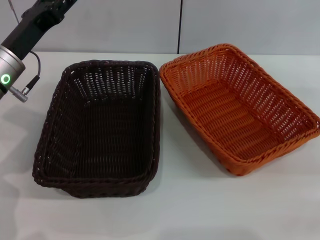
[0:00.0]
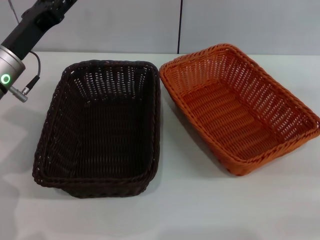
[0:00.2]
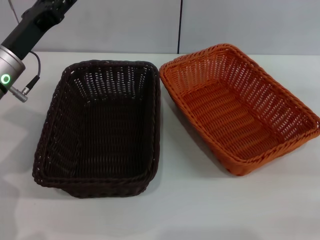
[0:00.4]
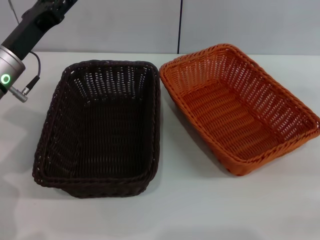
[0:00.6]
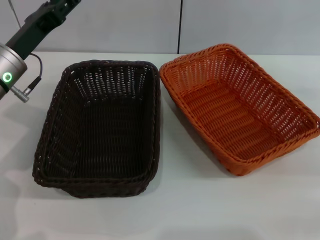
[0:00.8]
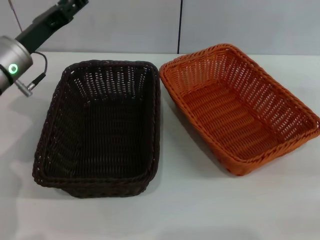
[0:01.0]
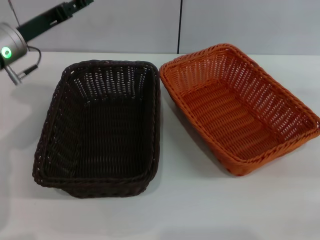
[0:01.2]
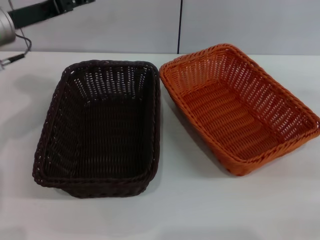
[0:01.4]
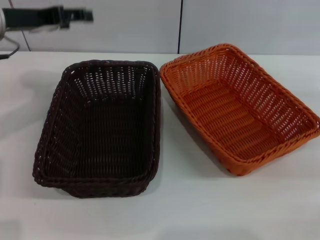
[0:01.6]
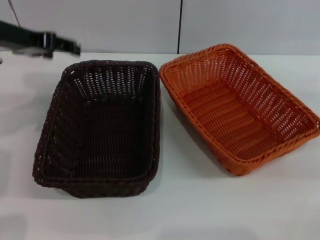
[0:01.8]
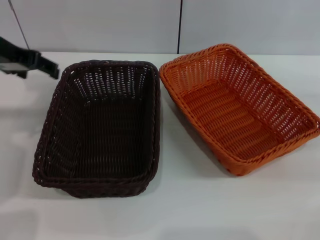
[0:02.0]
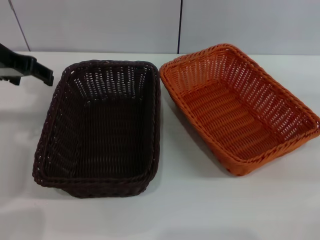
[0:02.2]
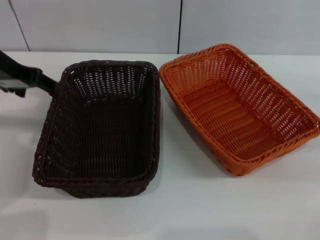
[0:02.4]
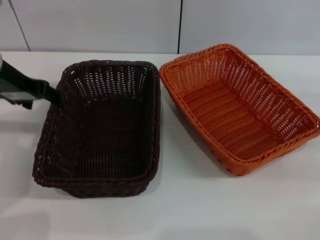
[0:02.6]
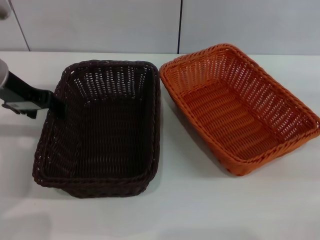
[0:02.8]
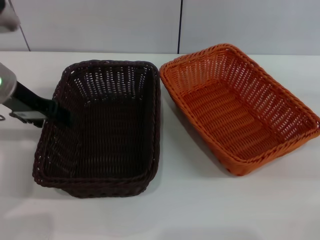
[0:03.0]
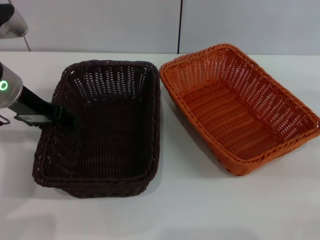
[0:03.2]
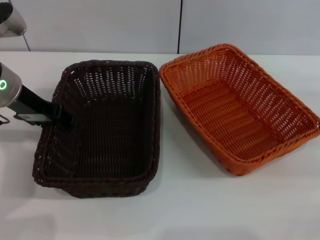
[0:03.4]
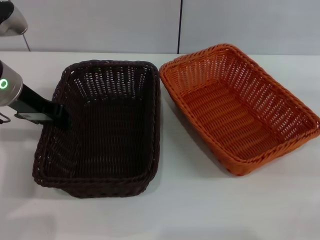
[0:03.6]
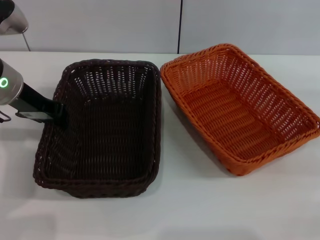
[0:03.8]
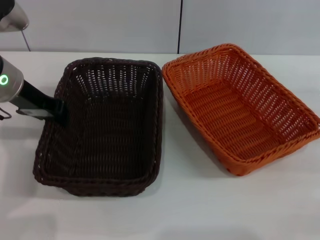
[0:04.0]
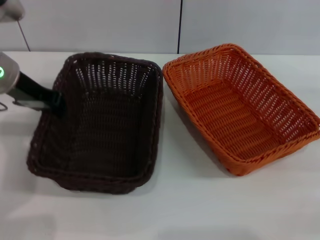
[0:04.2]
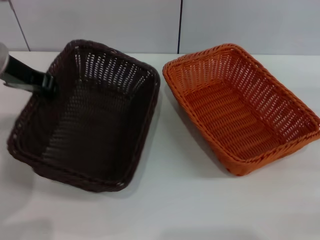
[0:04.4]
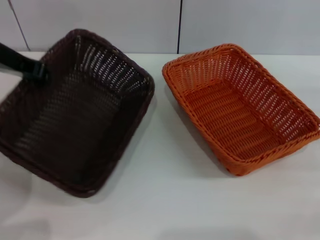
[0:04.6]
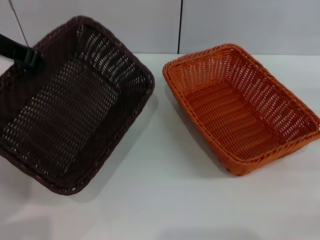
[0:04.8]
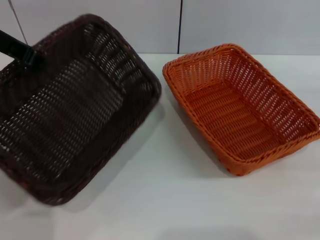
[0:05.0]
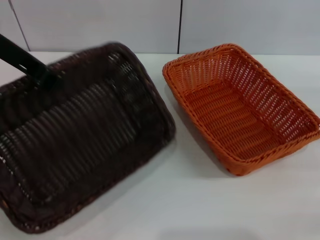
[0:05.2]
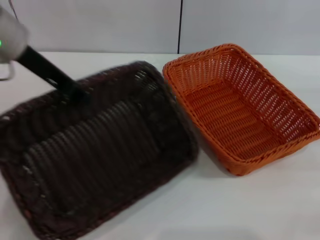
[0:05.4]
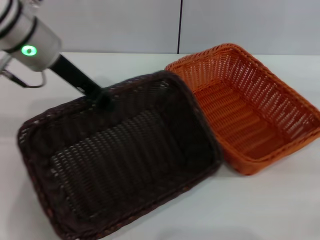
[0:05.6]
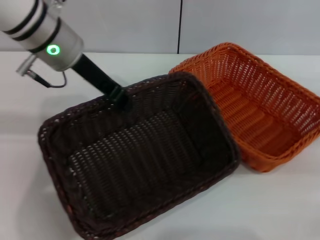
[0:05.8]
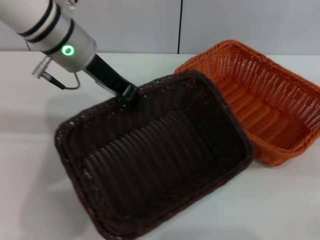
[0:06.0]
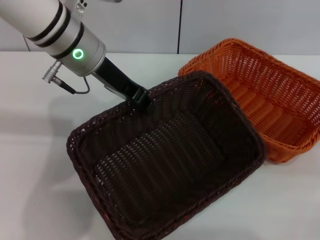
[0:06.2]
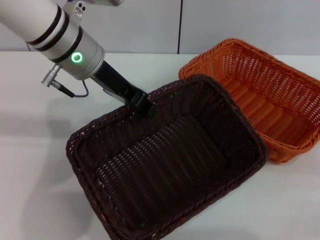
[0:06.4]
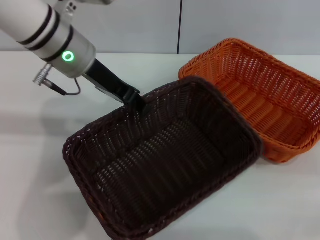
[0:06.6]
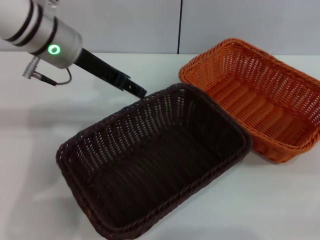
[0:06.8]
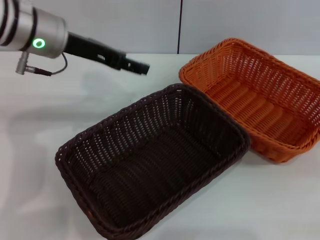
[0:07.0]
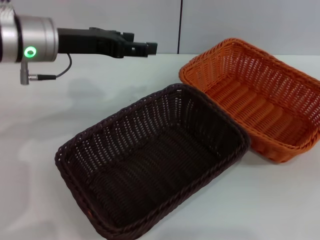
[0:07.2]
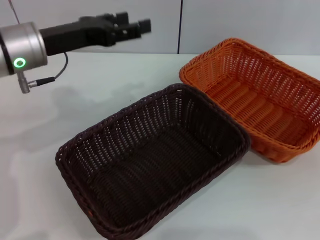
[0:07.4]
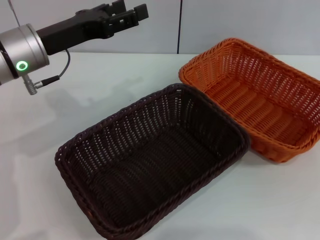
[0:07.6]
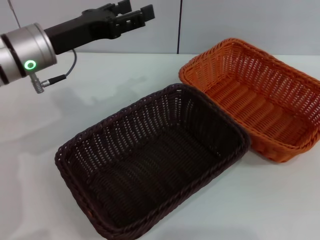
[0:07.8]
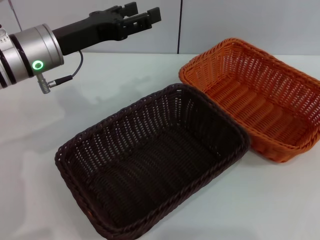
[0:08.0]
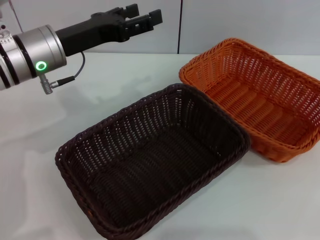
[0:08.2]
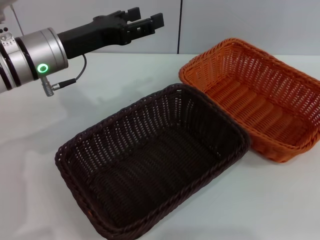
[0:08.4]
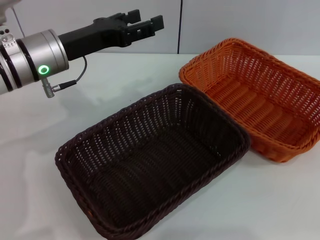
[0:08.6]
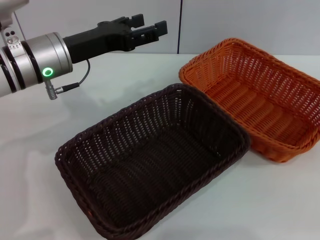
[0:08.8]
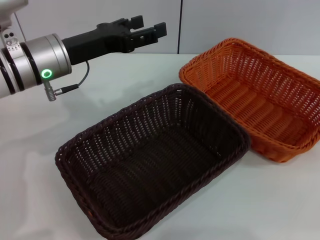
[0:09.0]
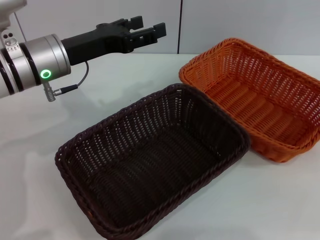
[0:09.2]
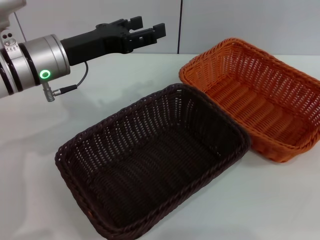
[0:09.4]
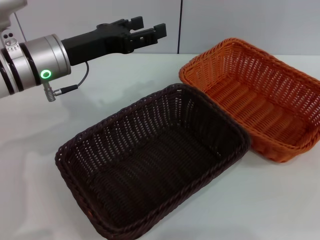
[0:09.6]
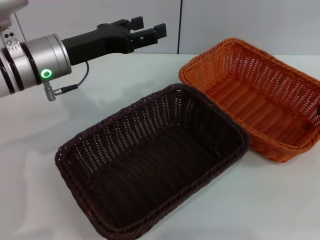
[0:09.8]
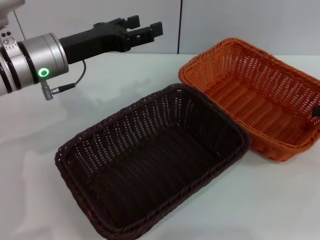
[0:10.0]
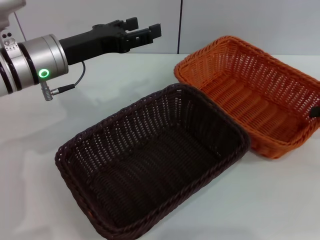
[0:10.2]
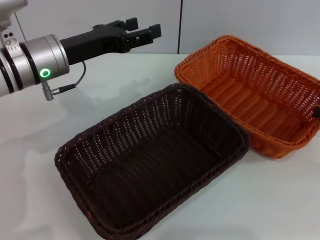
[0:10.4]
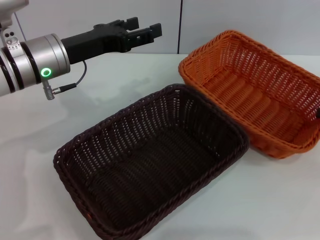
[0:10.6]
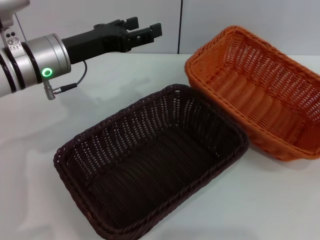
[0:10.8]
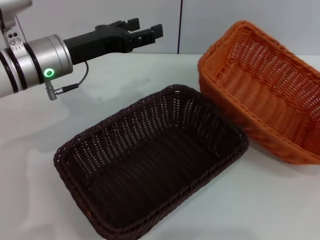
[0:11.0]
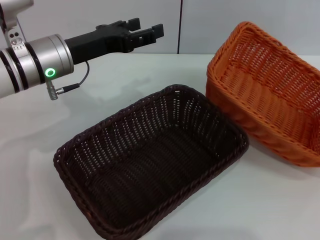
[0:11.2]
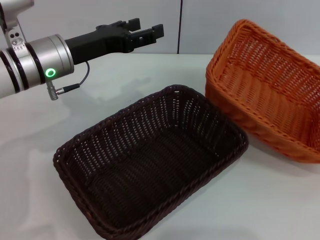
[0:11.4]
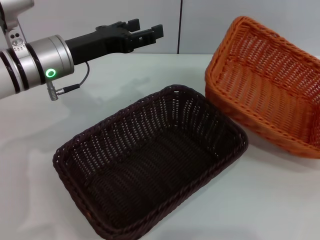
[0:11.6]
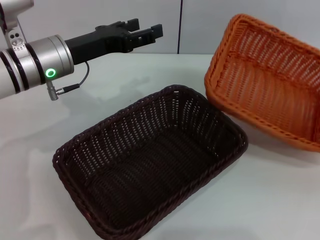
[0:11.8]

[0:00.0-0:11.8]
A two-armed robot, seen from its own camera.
Step, 0:00.0 to 0:04.2: Pick up the dark basket with the left gripper.
Step, 0:04.6 to 0:06.8: Place the dark basket in the center of view with the left gripper.
Step, 0:07.0 to 0:10.8: Pick up the light basket with the right gripper.
0:00.0 to 0:01.4: The left gripper goes roughly 5 cm upward.
0:03.0 to 0:04.4: The left gripper closes up.
0:04.4 to 0:06.0: The left gripper shifts approximately 10 cm to the right.
0:06.0 to 0:07.4: The left gripper heads to the left, covering approximately 5 cm, and opens its fingers.
0:07.4 to 0:08.8: The right gripper heads upward, covering some 10 cm.
0:08.8 to 0:10.4: The right gripper is displaced downward by approximately 5 cm, and closes up.
0:10.4 to 0:11.8: The right gripper closes up.

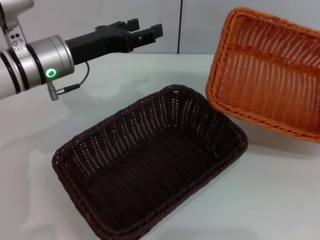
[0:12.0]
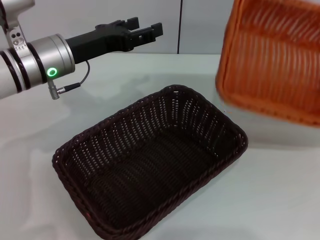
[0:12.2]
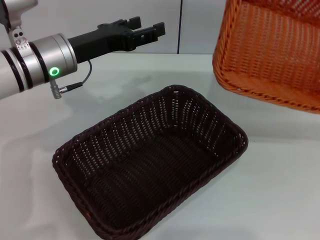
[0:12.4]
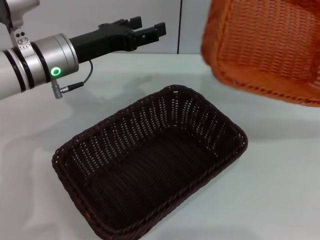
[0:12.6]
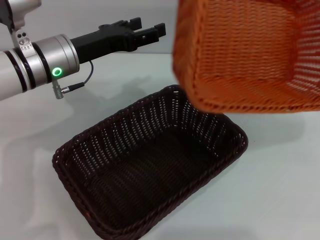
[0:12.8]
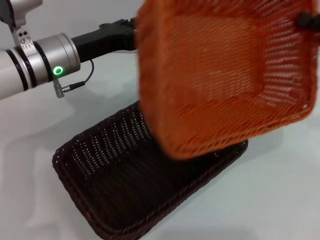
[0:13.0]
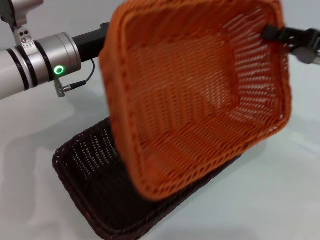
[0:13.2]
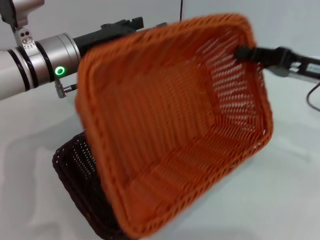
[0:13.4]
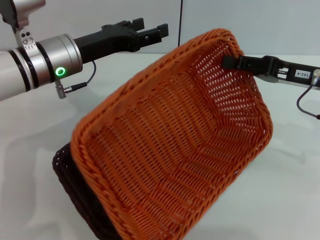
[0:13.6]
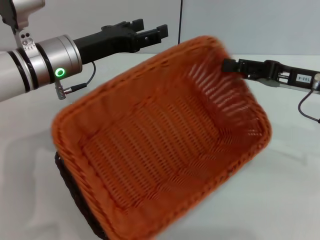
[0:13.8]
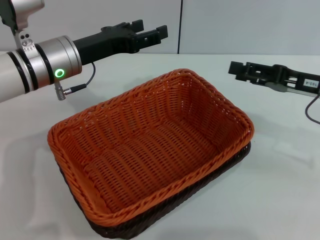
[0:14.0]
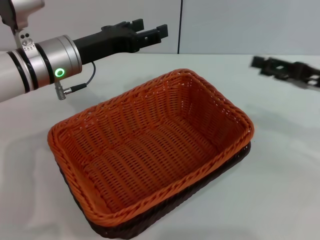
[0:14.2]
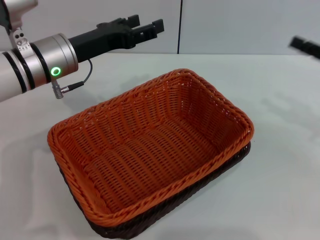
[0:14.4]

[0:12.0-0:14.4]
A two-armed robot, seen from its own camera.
Step, 0:12.0 to 0:13.8: Place the light basket on the dark basket with the right gripper.
0:12.0 to 0:13.2: The right gripper shifts some 15 cm to the left.
0:13.2 to 0:14.4: The right gripper shifts approximately 5 cm to the right, and opens.
